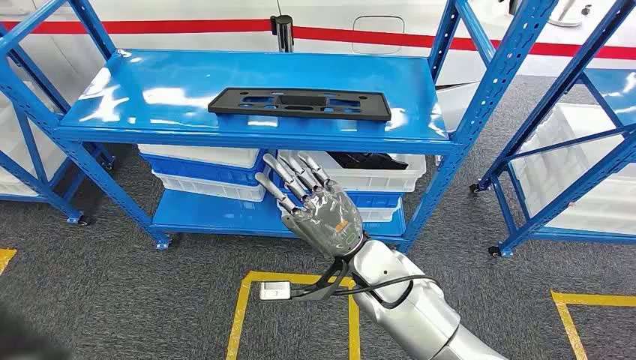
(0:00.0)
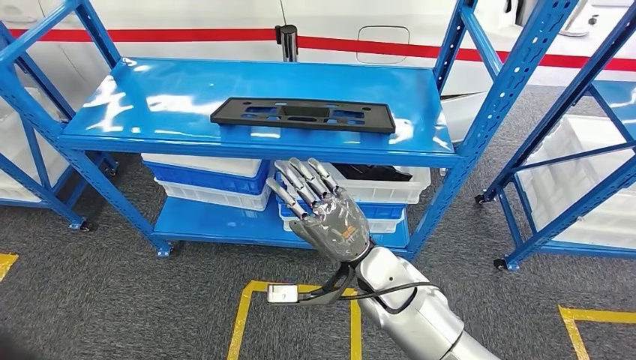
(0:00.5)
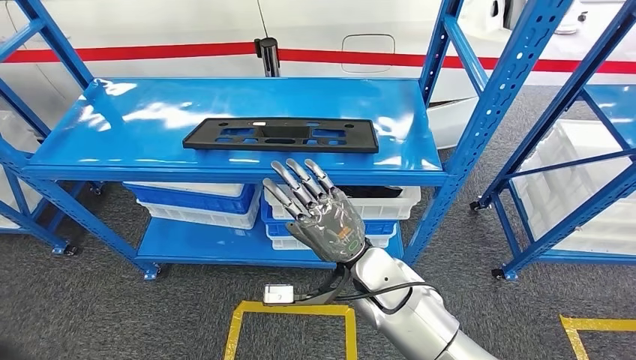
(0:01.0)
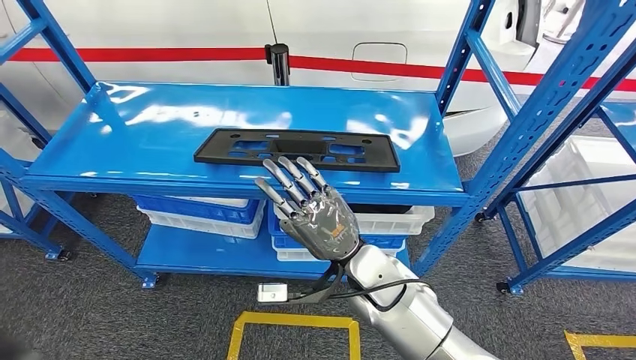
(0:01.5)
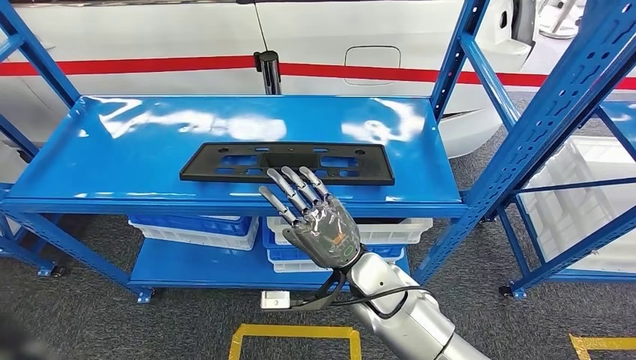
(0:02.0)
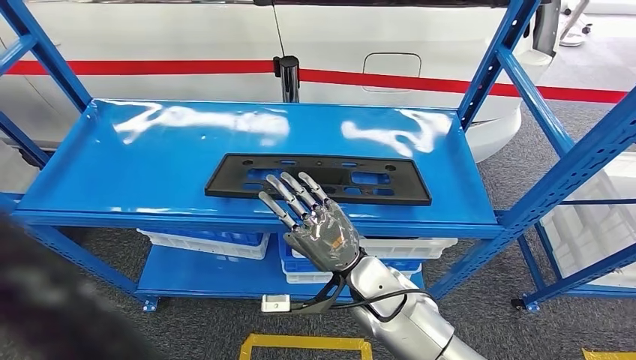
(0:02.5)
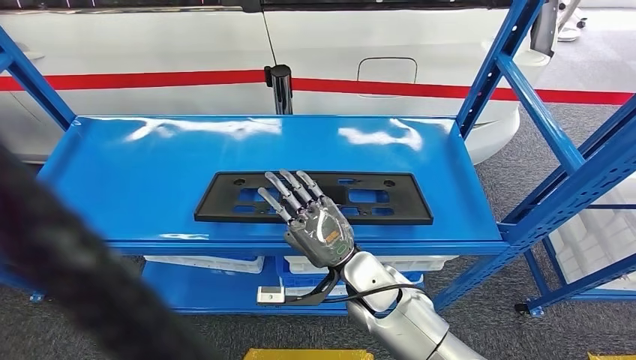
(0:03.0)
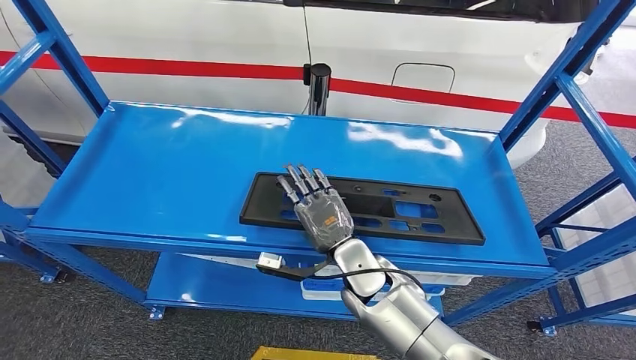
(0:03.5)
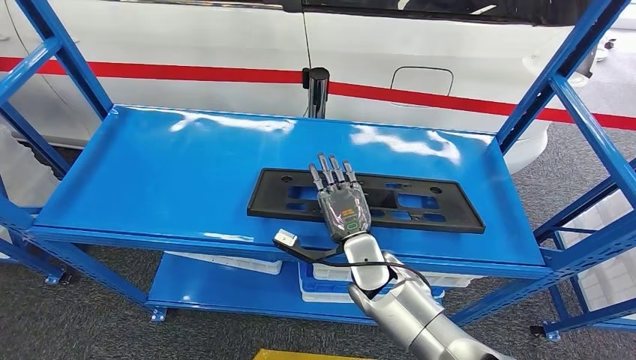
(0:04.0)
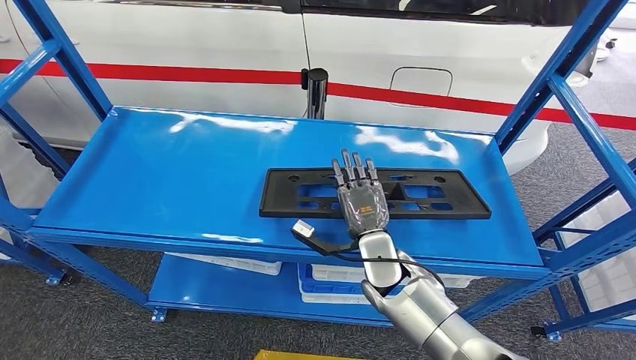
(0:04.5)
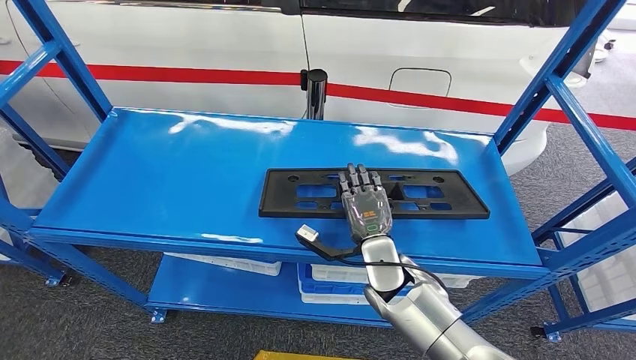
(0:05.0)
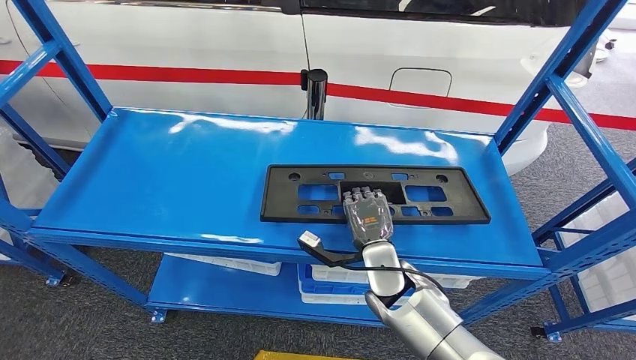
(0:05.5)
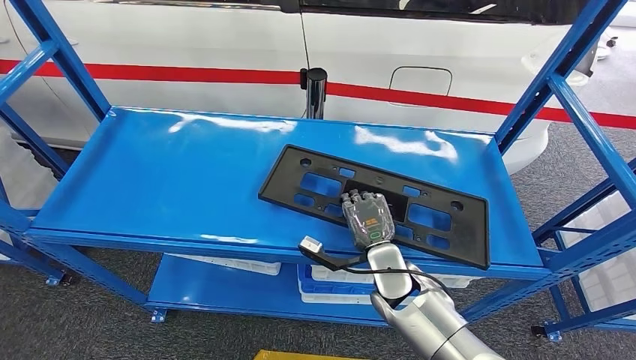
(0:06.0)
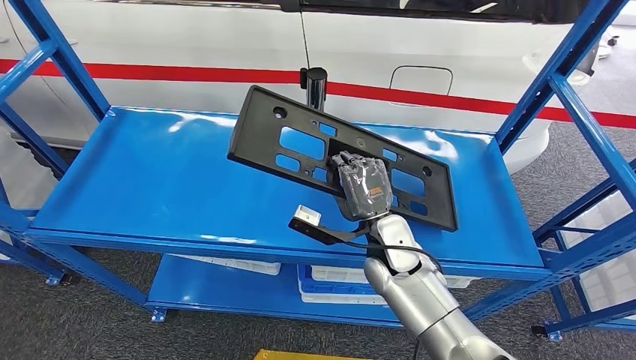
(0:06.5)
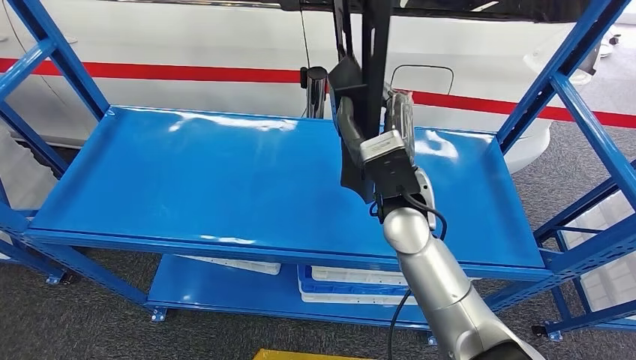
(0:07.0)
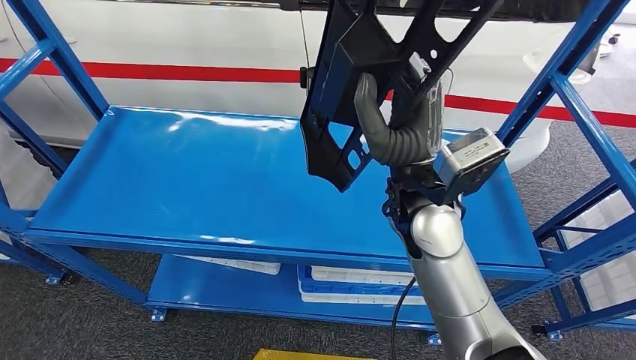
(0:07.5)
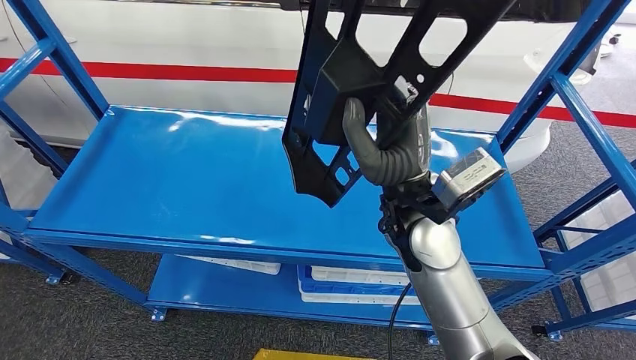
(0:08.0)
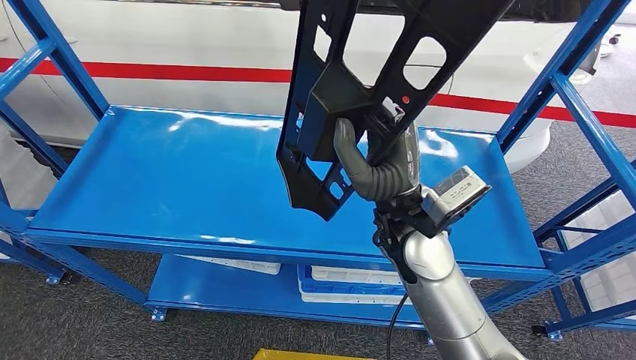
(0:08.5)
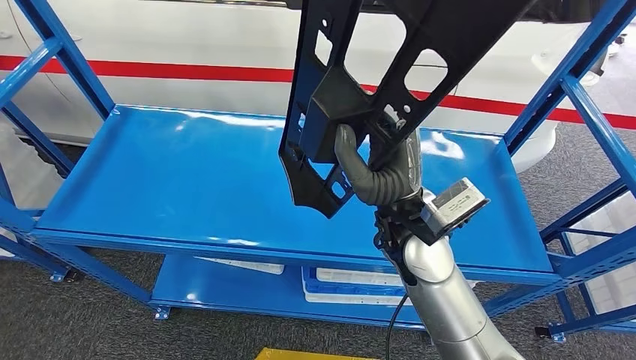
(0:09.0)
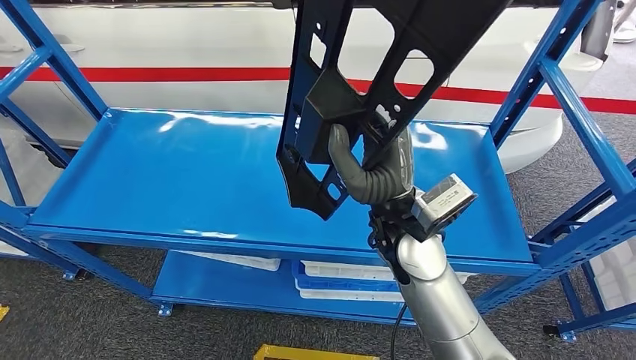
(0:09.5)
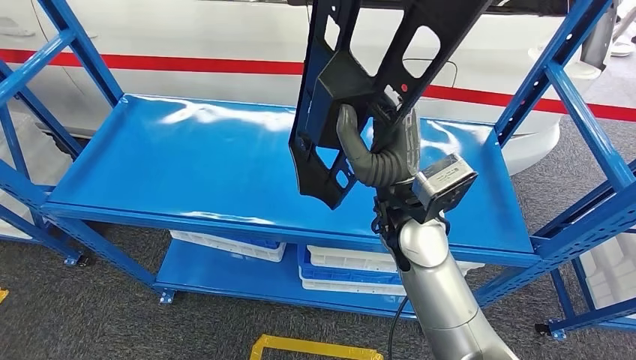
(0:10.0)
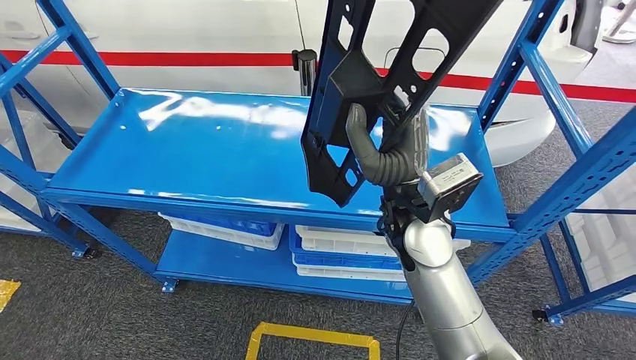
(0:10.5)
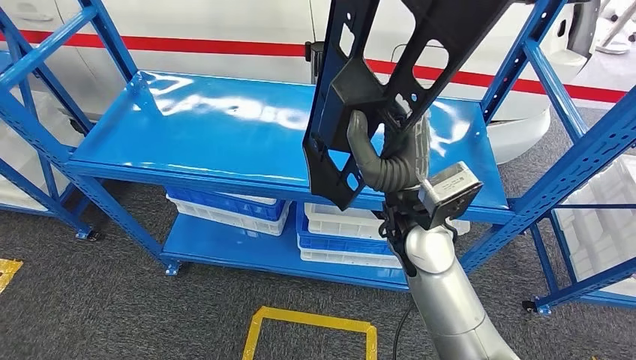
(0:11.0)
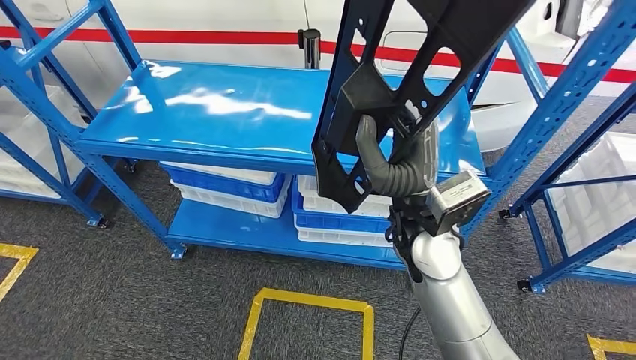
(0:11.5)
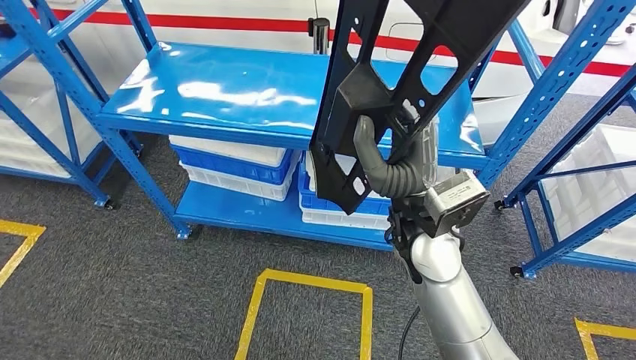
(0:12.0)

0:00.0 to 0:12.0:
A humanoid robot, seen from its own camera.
Step, 0:00.0 to 0:10.5: Pick up the large material from the shelf.
0:04.0 to 0:06.0: The hands make only small movements.

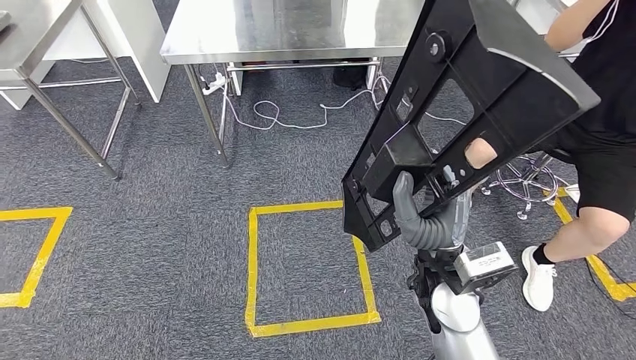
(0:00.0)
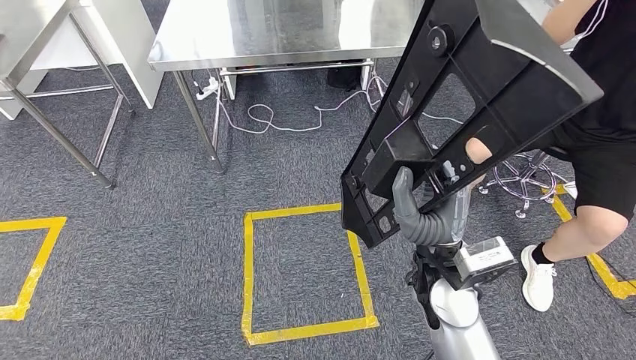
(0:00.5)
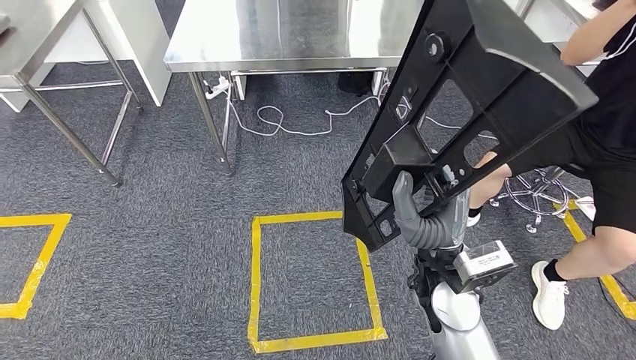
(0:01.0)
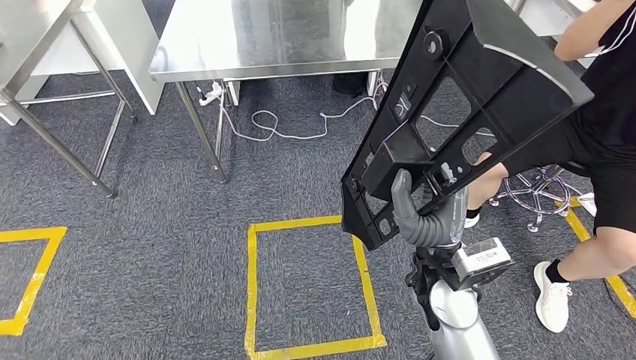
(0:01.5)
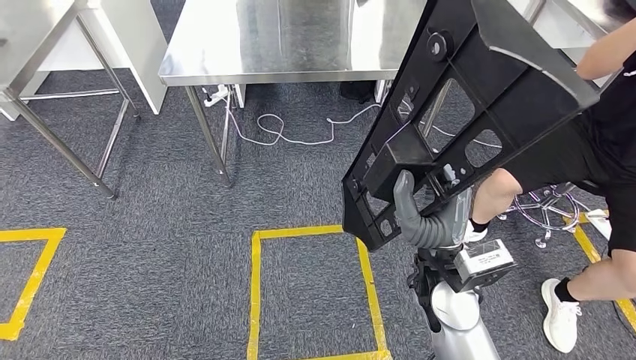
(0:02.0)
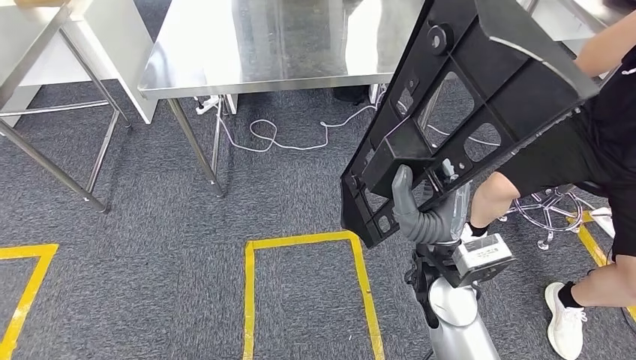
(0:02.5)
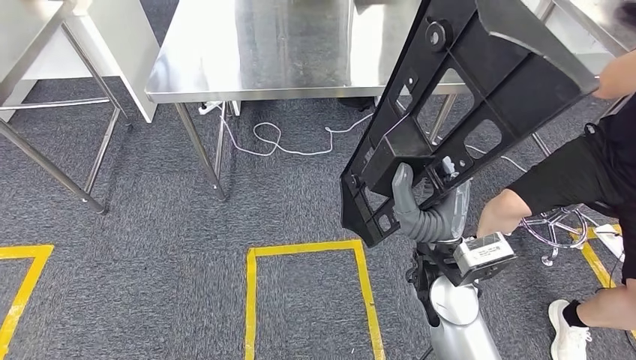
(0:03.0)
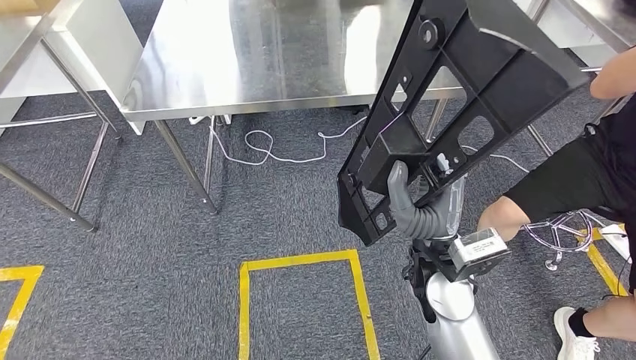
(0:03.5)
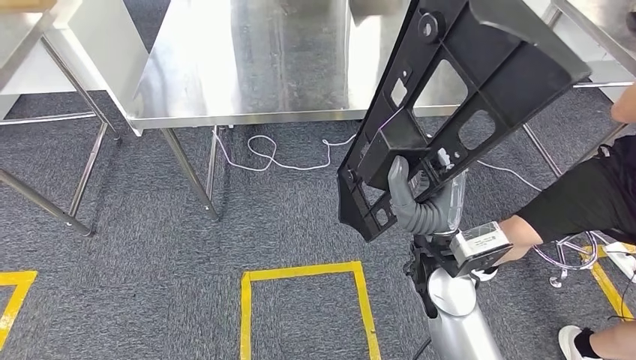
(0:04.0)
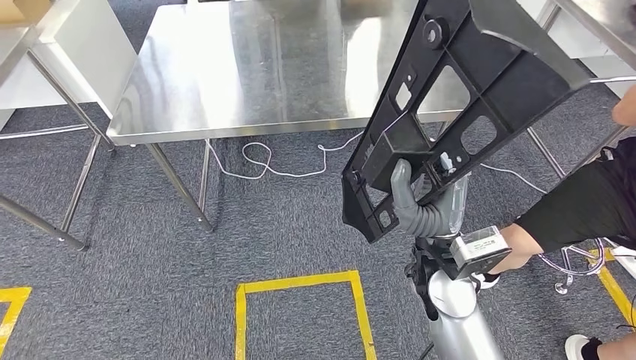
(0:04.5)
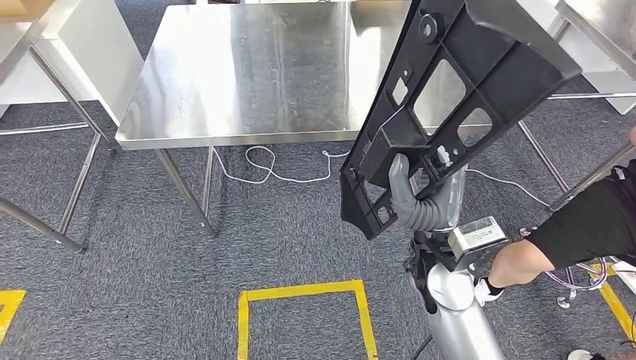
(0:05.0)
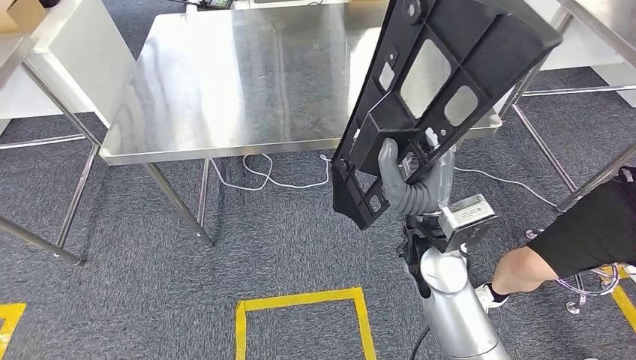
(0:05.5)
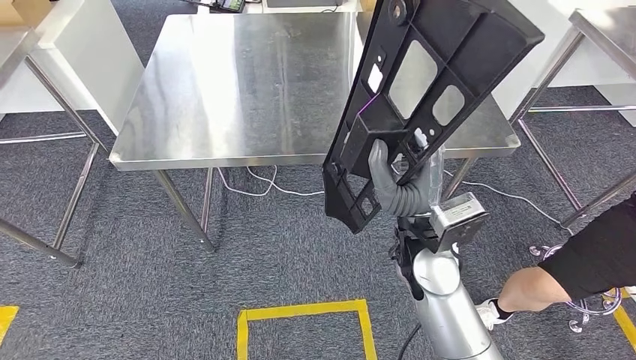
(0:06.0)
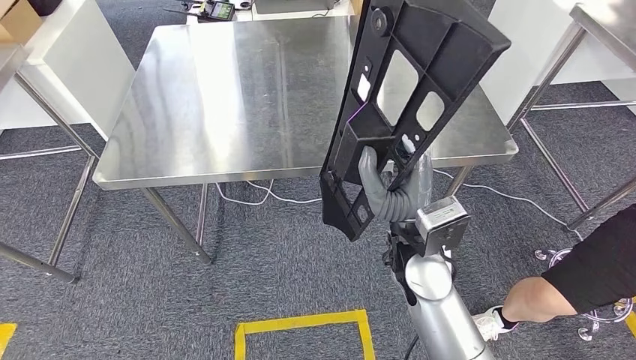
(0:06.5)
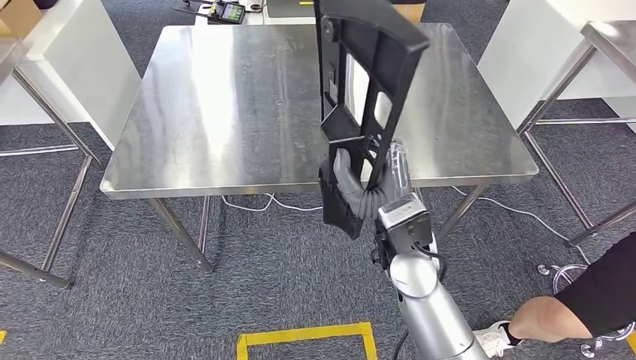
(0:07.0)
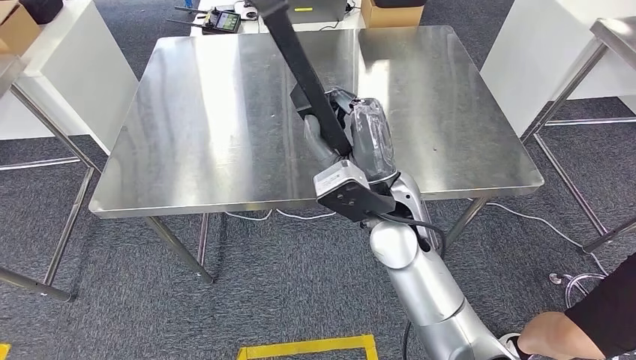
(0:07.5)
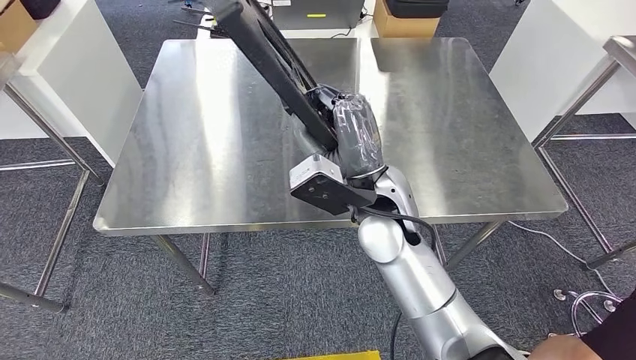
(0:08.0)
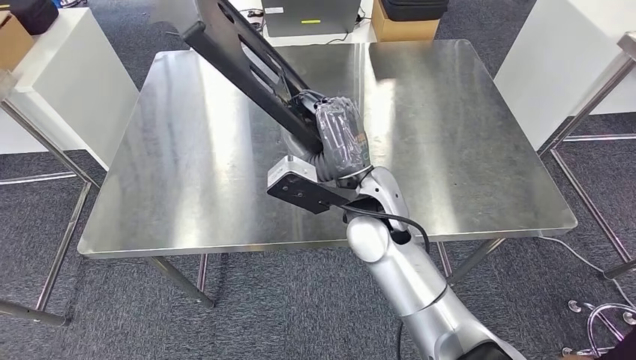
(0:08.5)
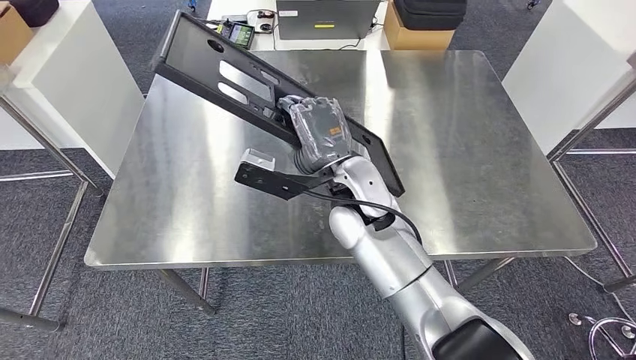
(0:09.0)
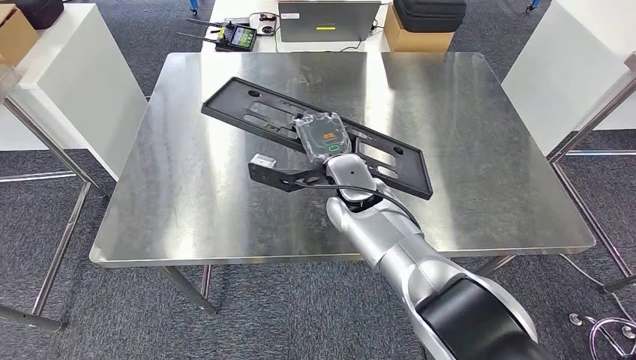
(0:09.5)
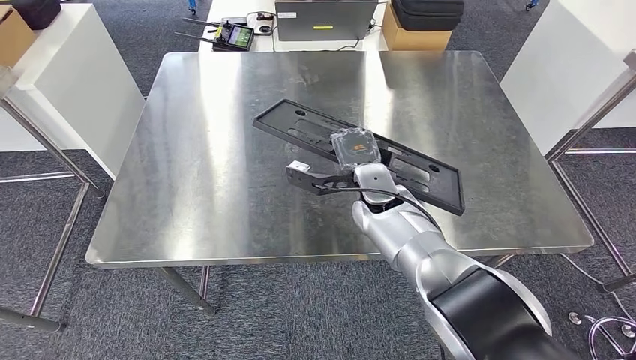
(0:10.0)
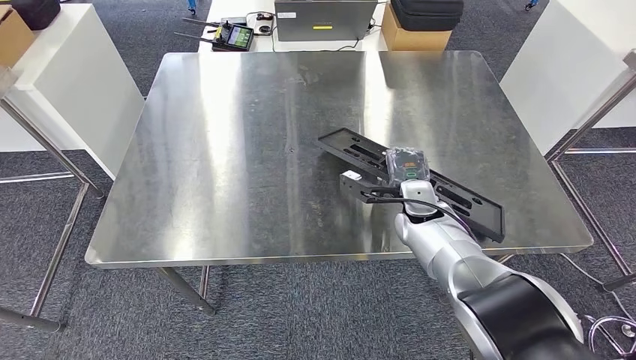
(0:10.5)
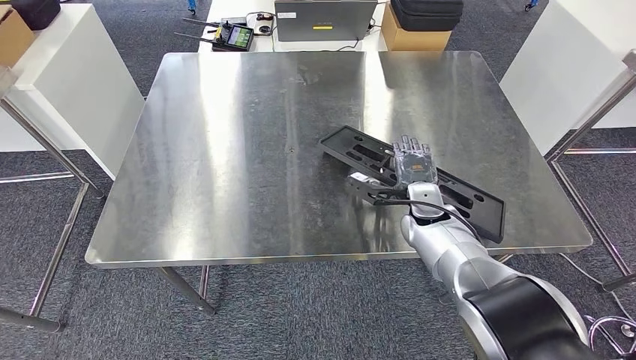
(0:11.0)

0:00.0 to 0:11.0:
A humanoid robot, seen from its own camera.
Step, 0:00.0 to 0:06.0: Move the large material to the workbench.
